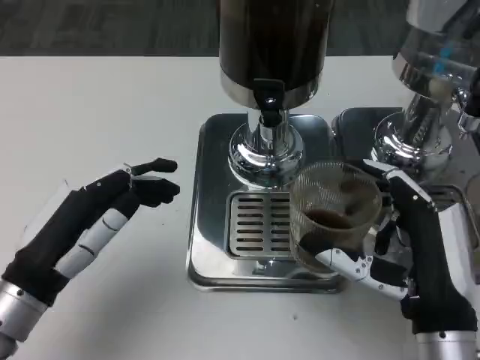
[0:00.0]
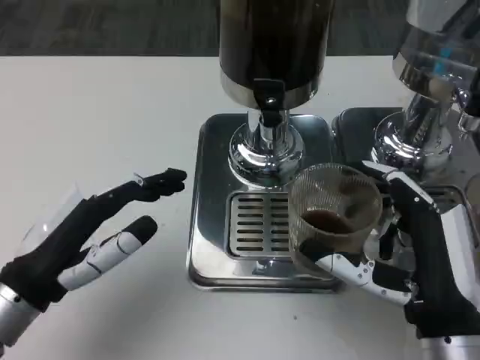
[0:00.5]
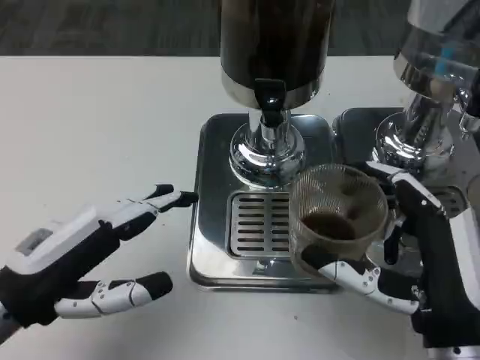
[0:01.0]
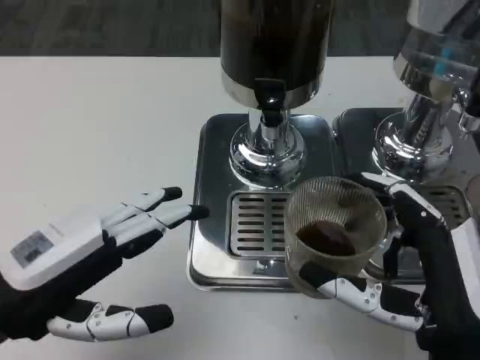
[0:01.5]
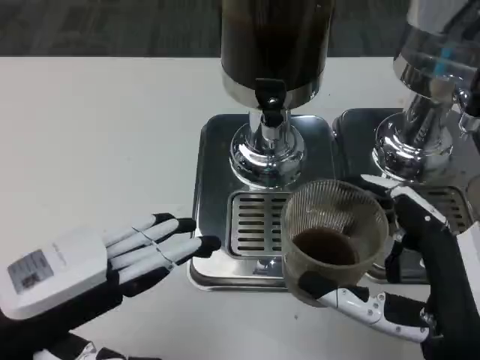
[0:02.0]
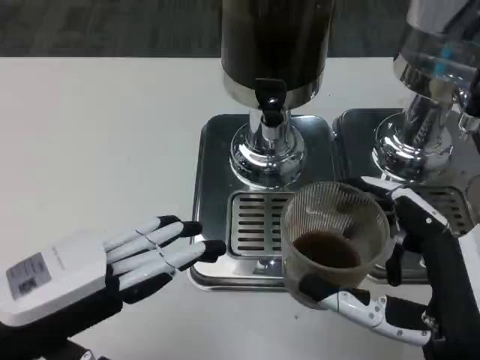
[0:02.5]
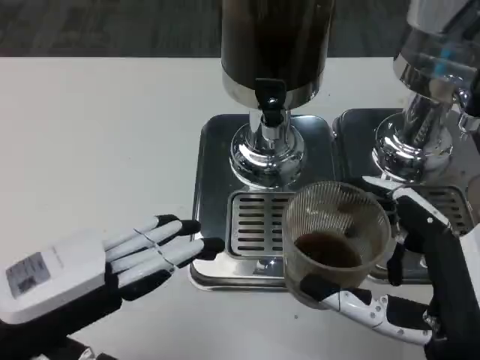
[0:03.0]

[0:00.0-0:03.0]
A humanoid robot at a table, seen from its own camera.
Task of the whole recording: Grasp the cup under the faucet to collect the drink, then remove the cup.
0:00.0 to 0:01.5: The left hand moves upward, some 5 cm.
0:01.5 to 0:03.0: The hands stay close to where they were, moving slightly.

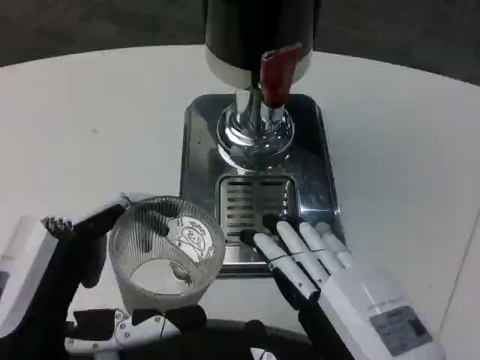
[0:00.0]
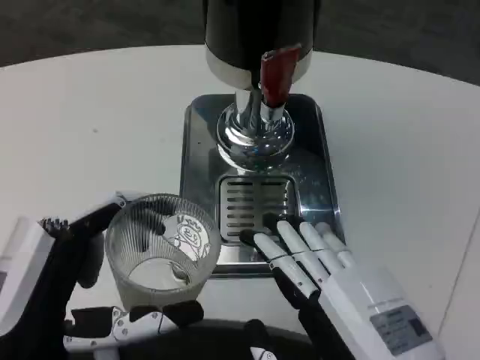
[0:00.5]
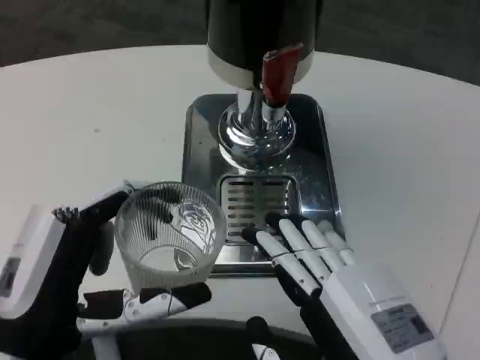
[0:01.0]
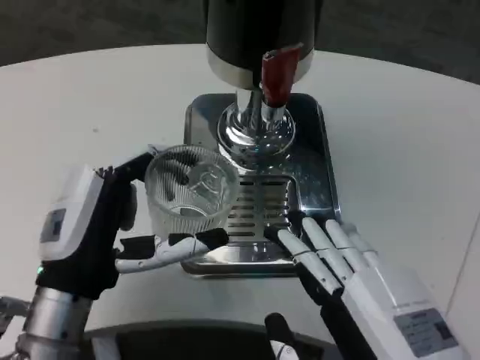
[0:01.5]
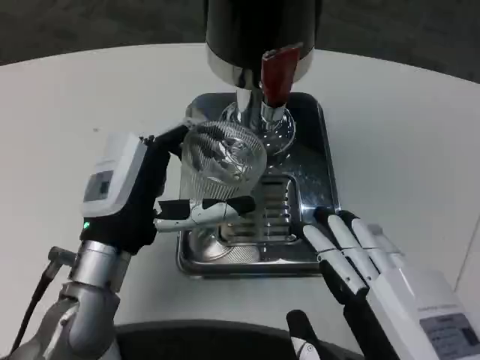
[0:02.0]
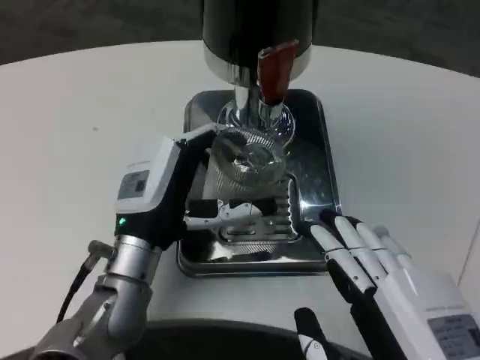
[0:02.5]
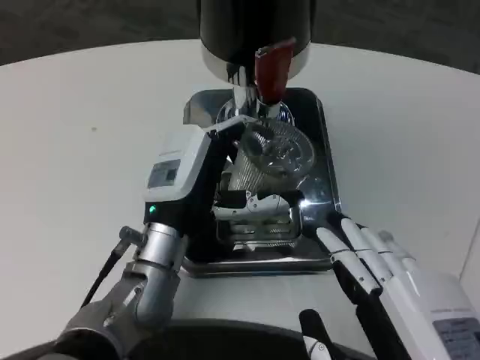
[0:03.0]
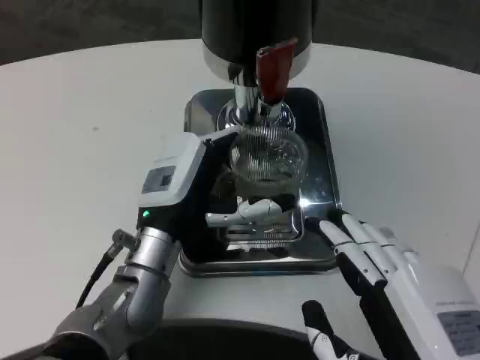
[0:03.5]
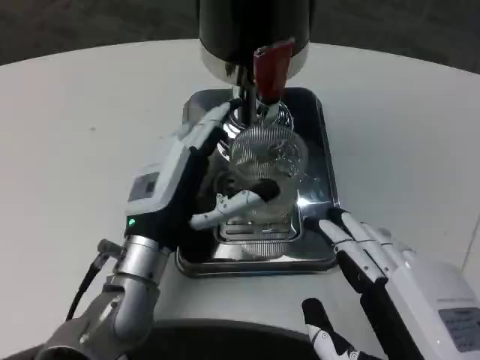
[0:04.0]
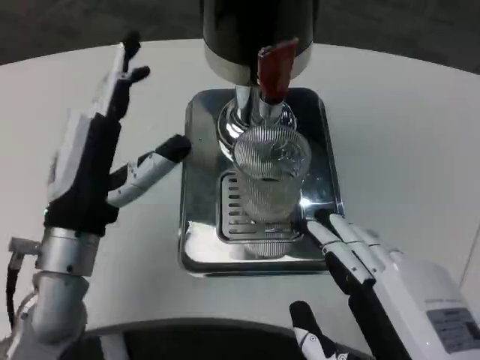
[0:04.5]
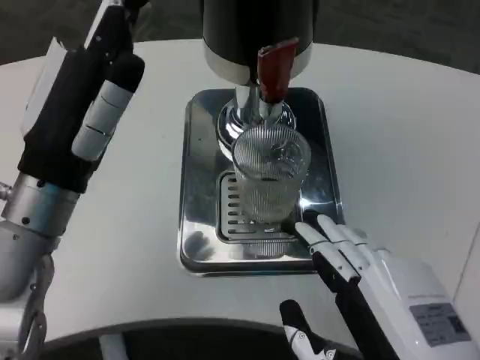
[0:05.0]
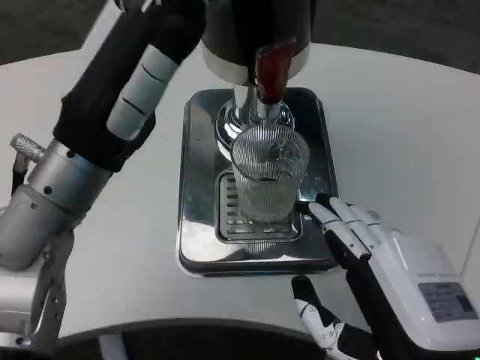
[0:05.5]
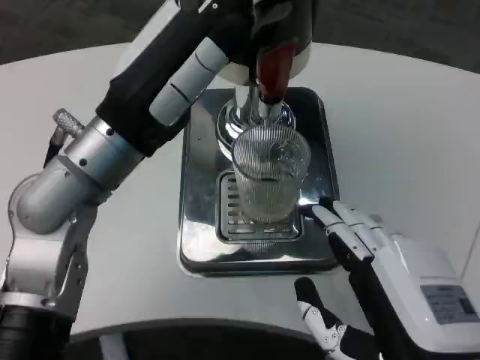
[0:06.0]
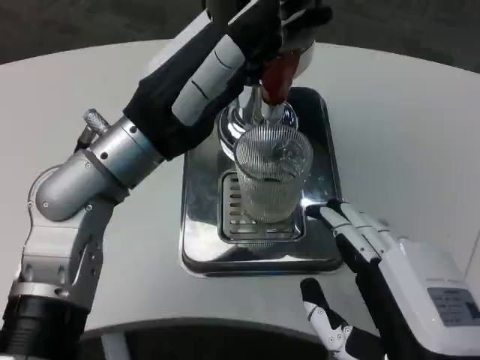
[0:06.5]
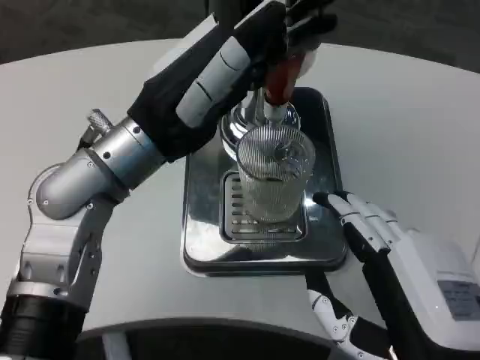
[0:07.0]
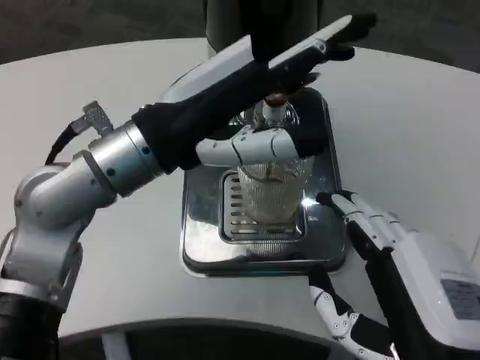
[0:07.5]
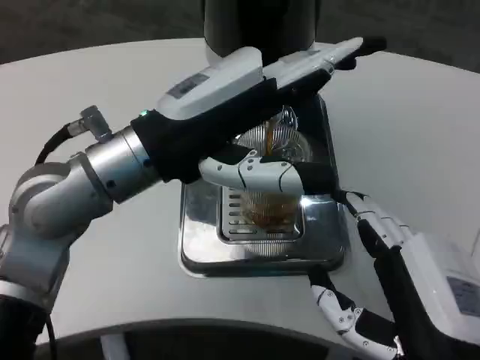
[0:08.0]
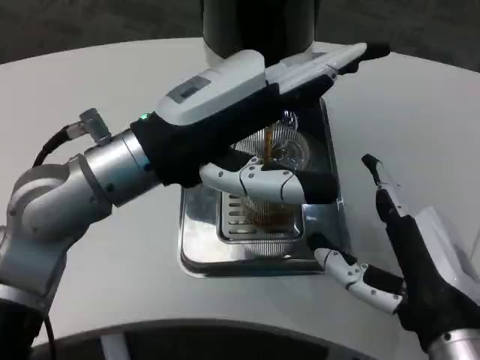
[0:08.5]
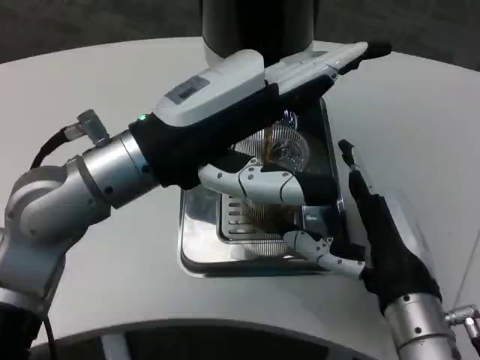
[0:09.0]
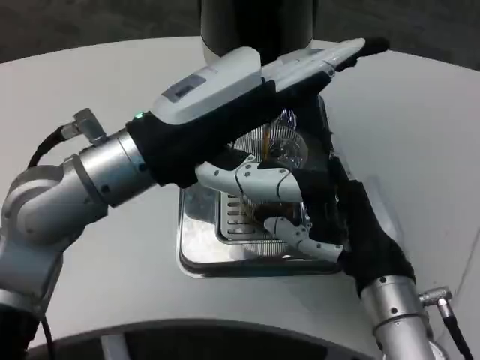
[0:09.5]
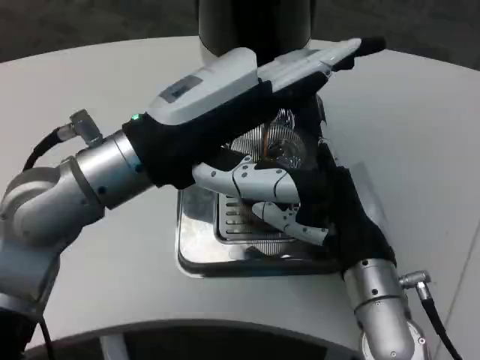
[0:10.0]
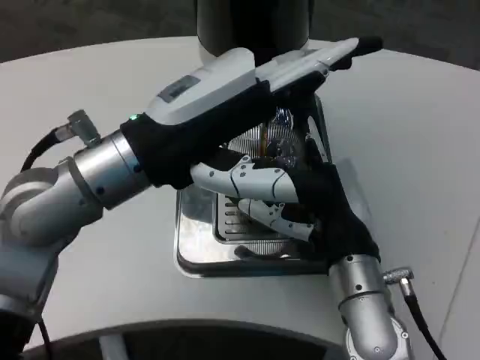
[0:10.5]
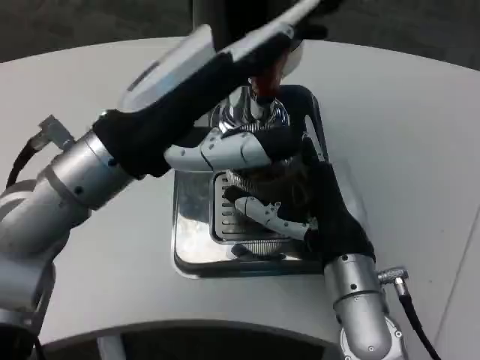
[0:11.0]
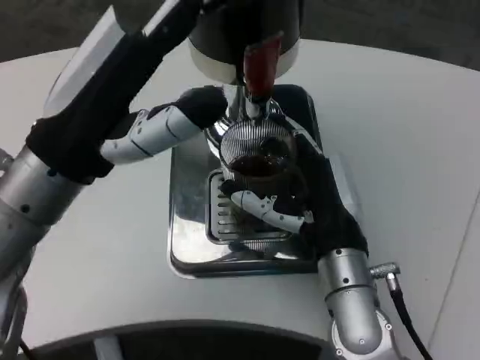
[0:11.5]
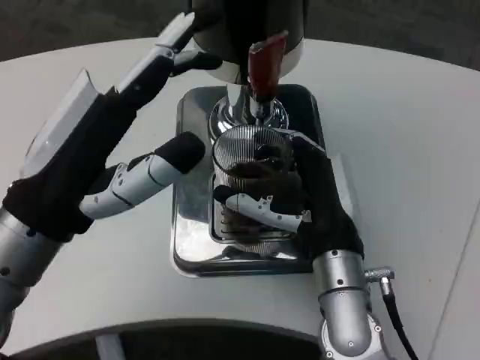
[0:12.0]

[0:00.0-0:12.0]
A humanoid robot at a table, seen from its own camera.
Task of the whole recording: Grasp the cup under the faucet to collect the drink, then remove the cup.
0:00.0 to 0:02.0: The left hand is displaced forward by about 15 cm.
0:04.0 to 0:06.0: The left hand is displaced upward by about 15 cm.
0:08.0 to 0:10.0: The right hand moves forward, about 15 cm.
0:10.0 to 0:12.0: The left hand heads backward and downward, covering some 10 cm.

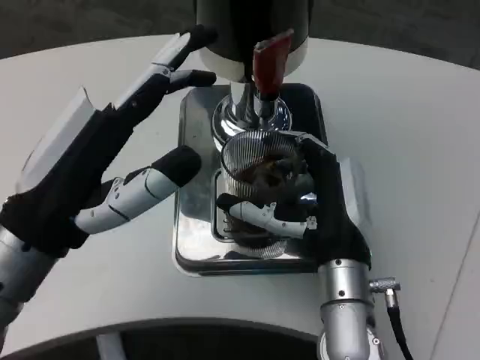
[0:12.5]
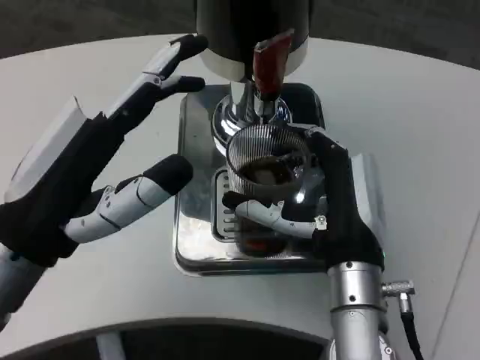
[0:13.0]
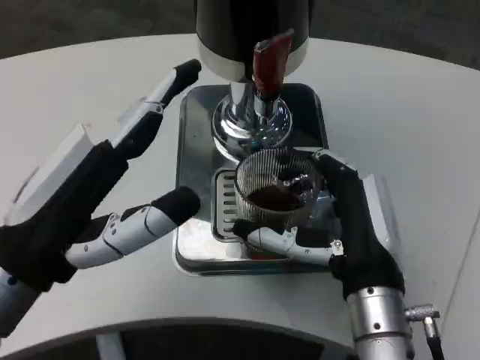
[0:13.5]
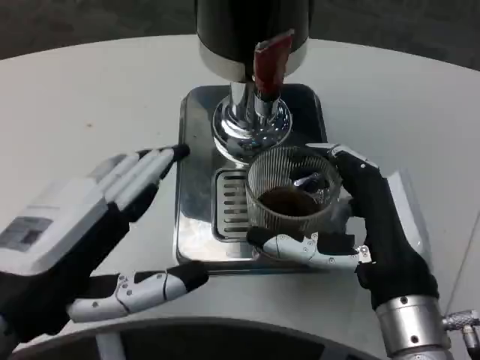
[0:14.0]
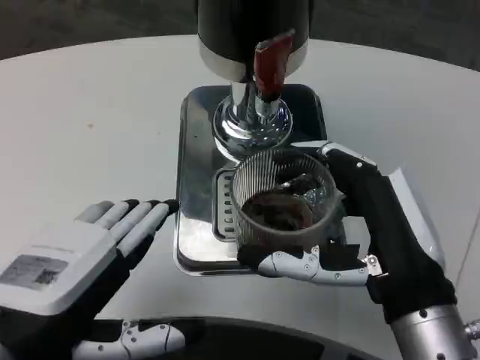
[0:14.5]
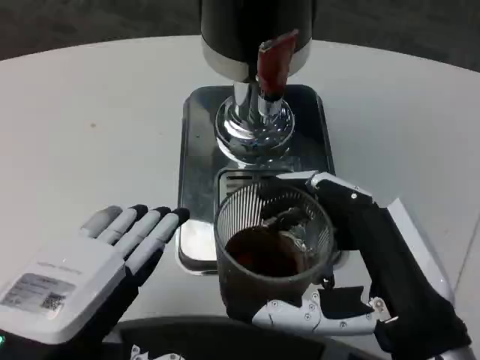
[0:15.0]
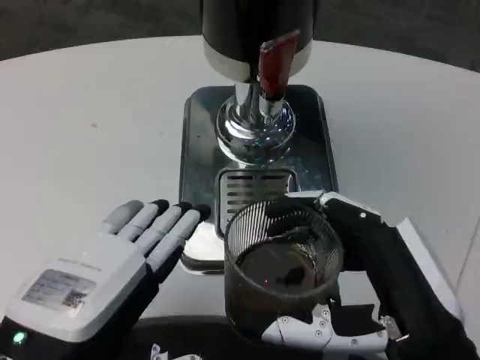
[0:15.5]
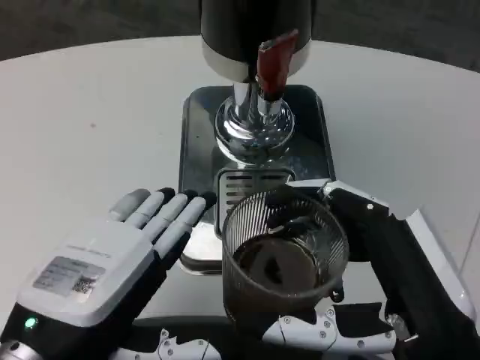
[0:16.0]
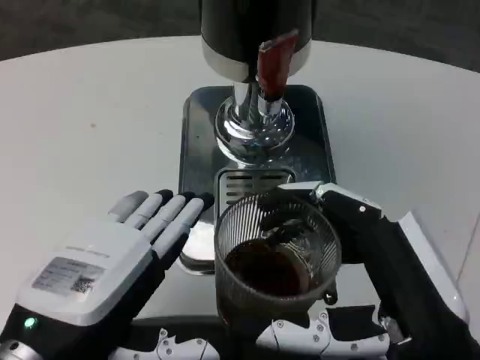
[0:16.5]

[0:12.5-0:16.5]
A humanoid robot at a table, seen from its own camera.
Task of the whole recording: Grasp the cup under the faucet to collect the drink, then remove the cup.
0:12.5 to 0:14.5: The right hand moves backward and to the right, some 10 cm. Meanwhile the left hand goes some 10 cm backward.
0:14.5 to 0:16.5: The right hand travels backward by roughly 5 cm.

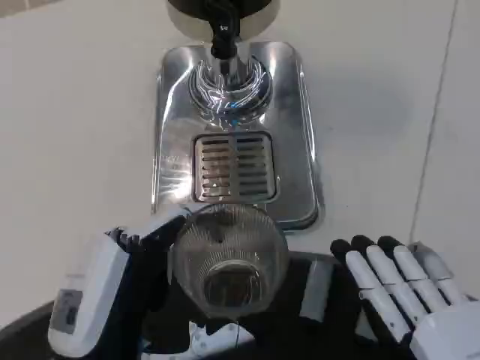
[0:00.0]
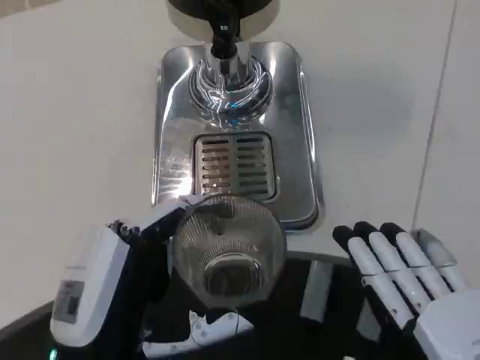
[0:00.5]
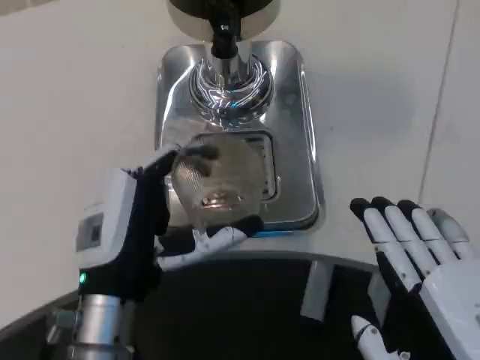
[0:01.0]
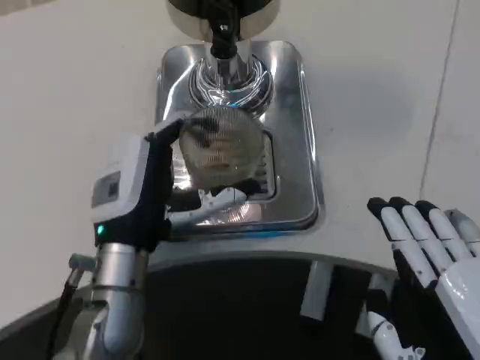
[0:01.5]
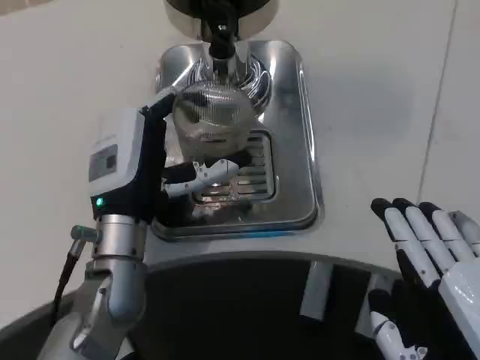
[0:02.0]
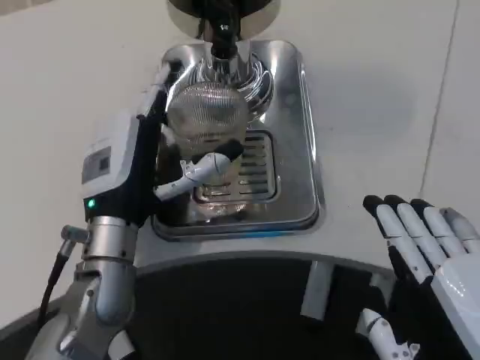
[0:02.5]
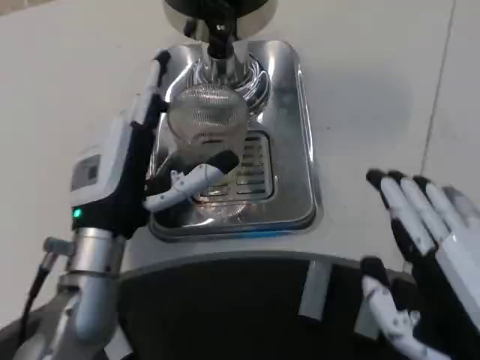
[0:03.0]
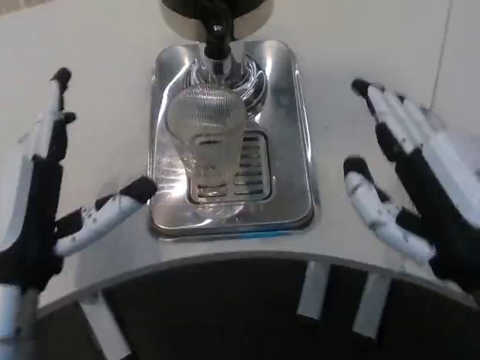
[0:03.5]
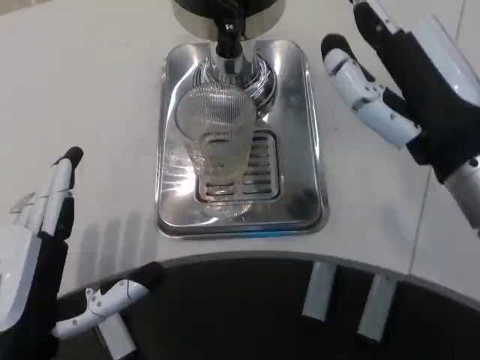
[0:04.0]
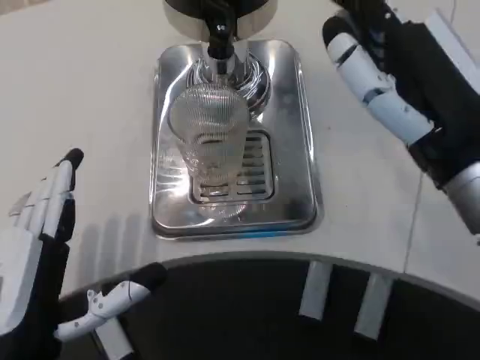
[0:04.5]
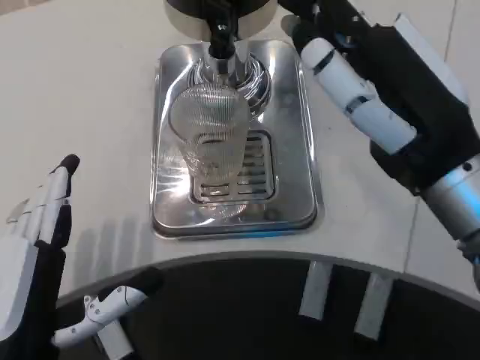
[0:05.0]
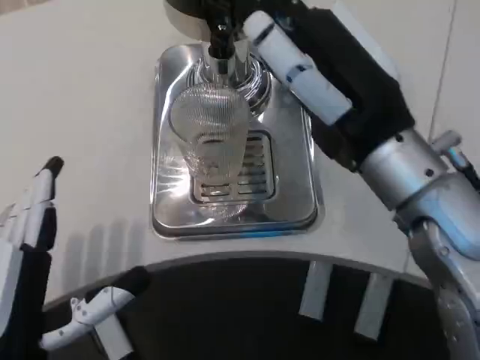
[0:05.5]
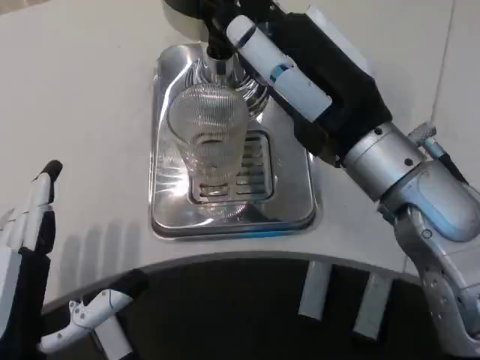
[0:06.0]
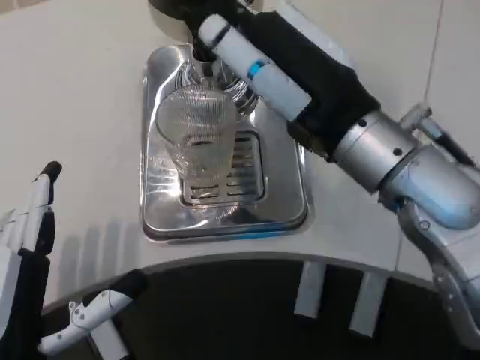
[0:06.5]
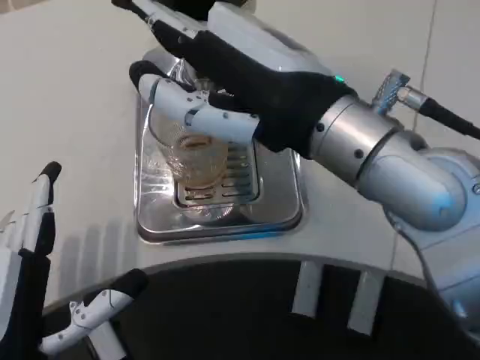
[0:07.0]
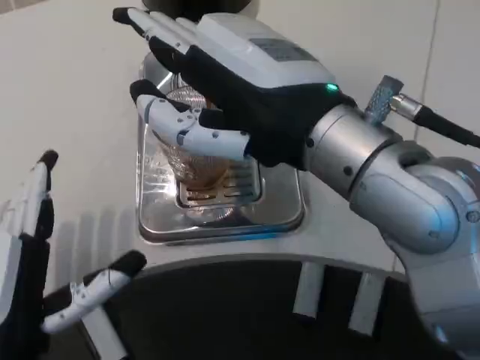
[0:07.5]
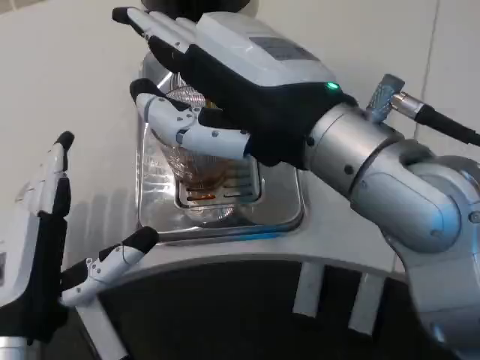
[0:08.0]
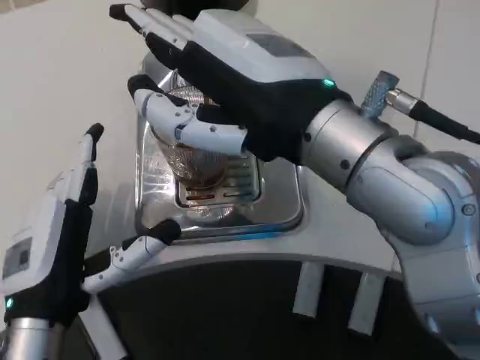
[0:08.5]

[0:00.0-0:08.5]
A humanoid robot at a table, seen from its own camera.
Task of the whole recording: Grasp the cup under the faucet to collect the drink, then remove the cup.
0:00.0 to 0:02.0: The left hand heads forward, covering some 15 cm.
0:02.0 to 0:04.0: The right hand travels forward and upward by about 15 cm. The left hand shifts roughly 15 cm backward and to the left.
0:04.0 to 0:06.5: The right hand shifts roughly 5 cm to the left.
0:06.5 to 0:08.5: The left hand heads forward, covering about 5 cm. Meanwhile the right hand shifts by approximately 5 cm.
